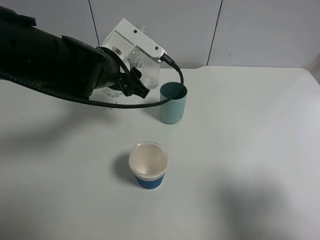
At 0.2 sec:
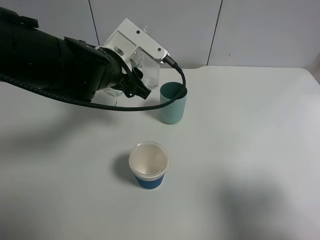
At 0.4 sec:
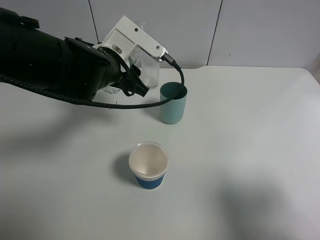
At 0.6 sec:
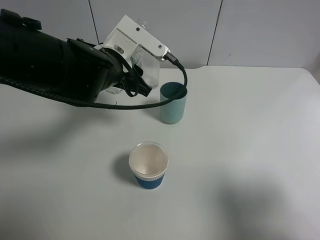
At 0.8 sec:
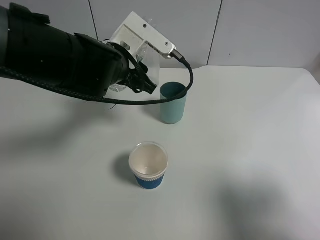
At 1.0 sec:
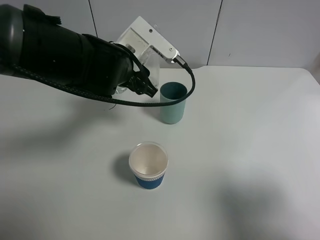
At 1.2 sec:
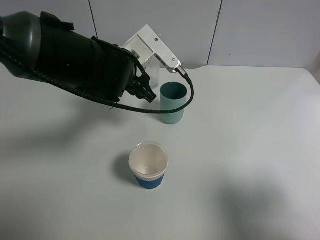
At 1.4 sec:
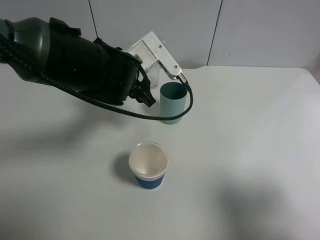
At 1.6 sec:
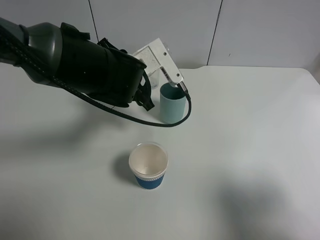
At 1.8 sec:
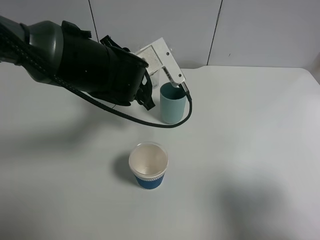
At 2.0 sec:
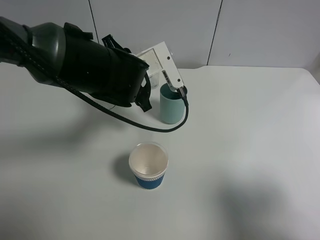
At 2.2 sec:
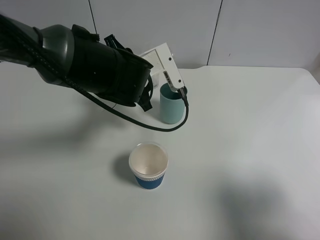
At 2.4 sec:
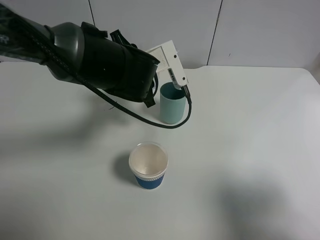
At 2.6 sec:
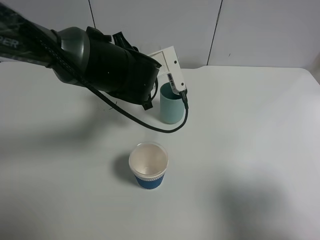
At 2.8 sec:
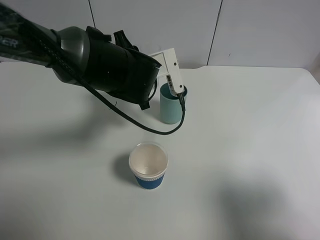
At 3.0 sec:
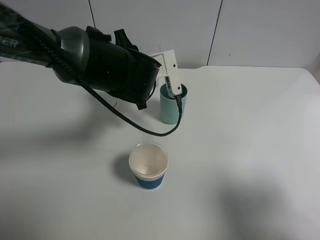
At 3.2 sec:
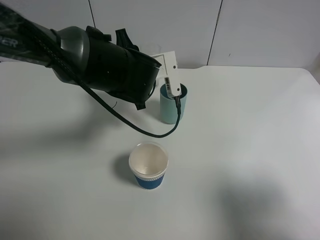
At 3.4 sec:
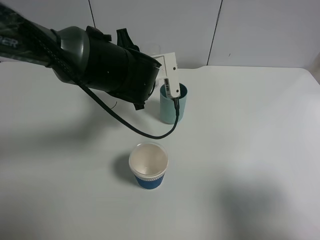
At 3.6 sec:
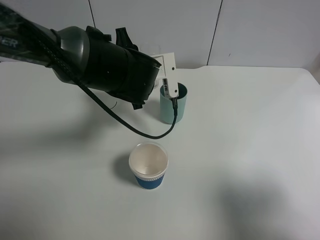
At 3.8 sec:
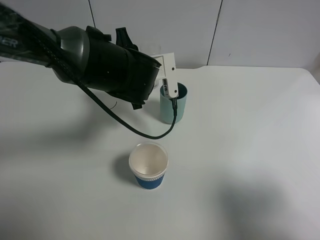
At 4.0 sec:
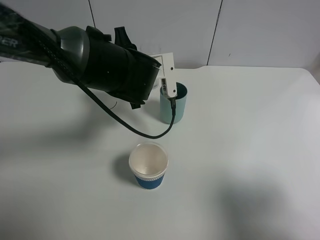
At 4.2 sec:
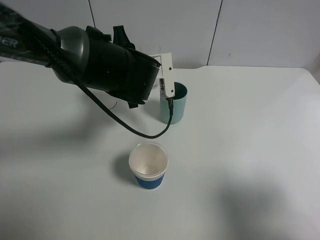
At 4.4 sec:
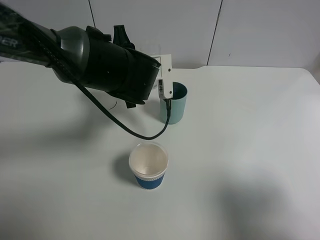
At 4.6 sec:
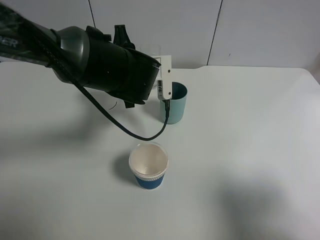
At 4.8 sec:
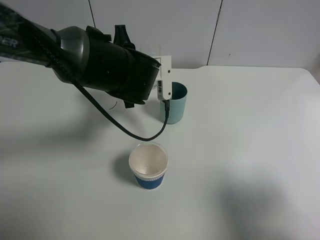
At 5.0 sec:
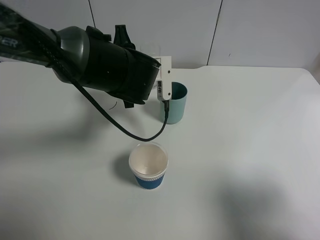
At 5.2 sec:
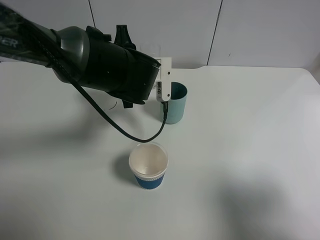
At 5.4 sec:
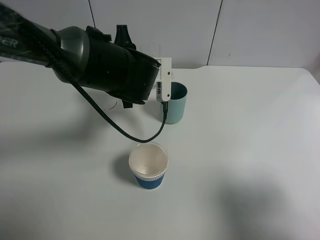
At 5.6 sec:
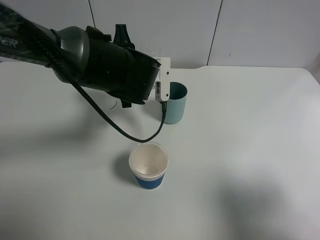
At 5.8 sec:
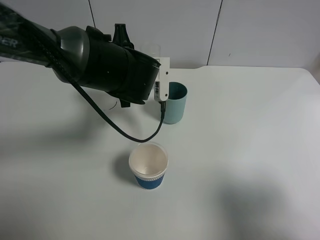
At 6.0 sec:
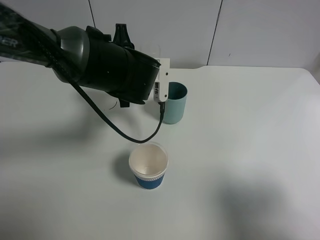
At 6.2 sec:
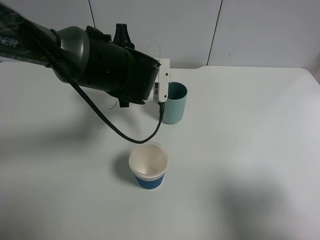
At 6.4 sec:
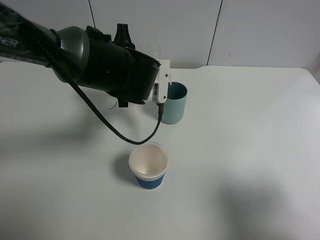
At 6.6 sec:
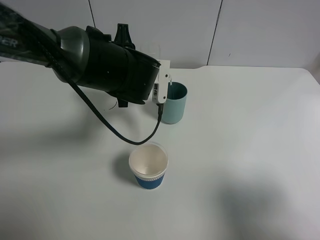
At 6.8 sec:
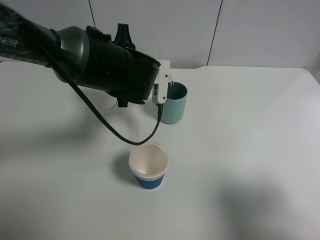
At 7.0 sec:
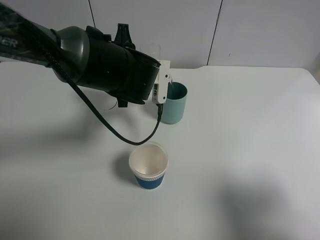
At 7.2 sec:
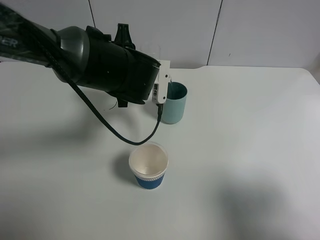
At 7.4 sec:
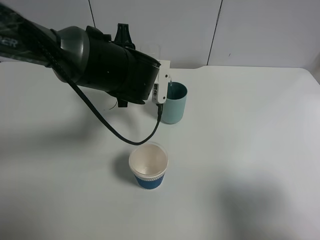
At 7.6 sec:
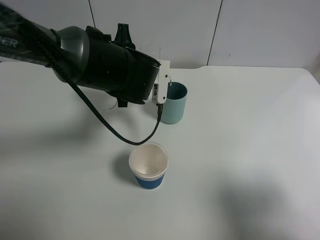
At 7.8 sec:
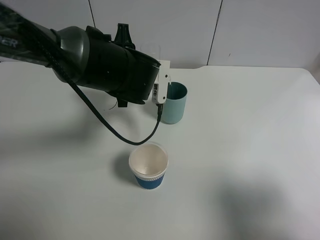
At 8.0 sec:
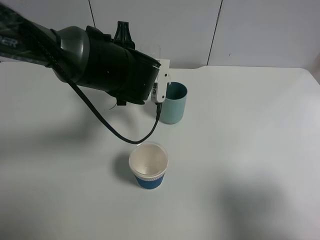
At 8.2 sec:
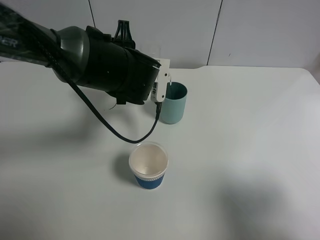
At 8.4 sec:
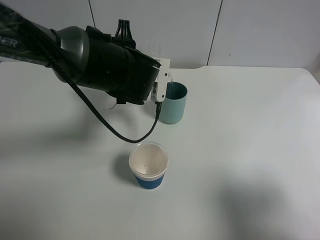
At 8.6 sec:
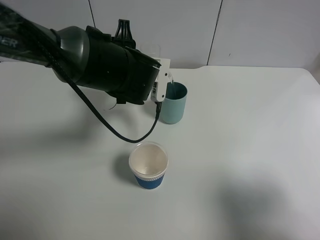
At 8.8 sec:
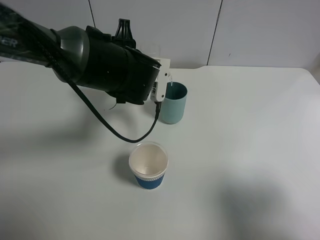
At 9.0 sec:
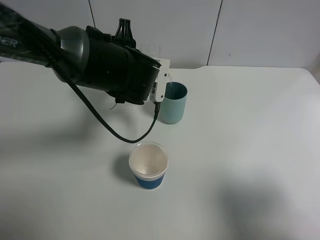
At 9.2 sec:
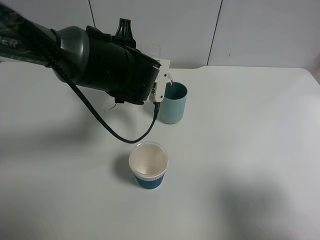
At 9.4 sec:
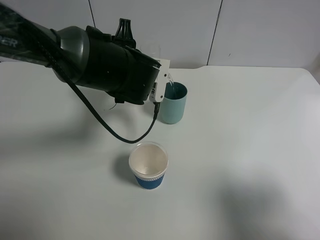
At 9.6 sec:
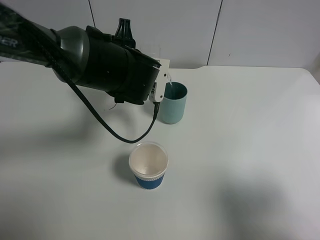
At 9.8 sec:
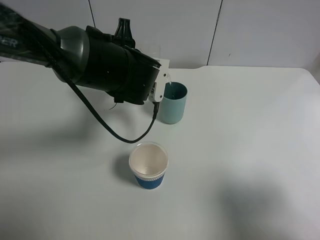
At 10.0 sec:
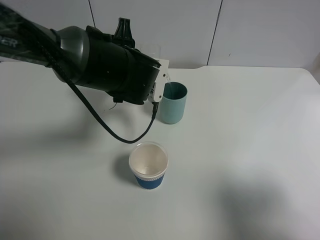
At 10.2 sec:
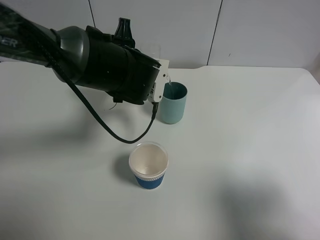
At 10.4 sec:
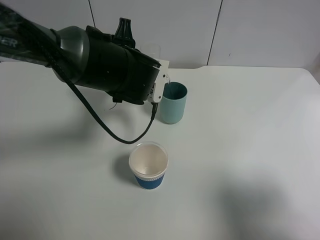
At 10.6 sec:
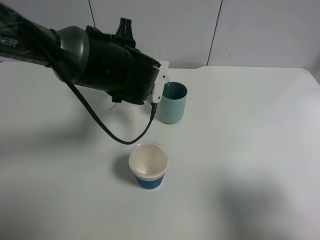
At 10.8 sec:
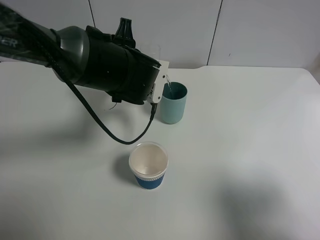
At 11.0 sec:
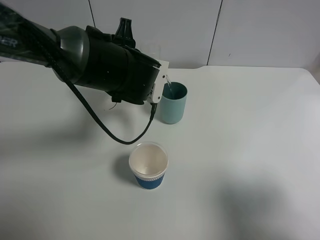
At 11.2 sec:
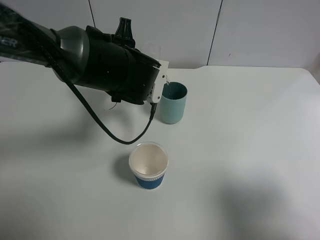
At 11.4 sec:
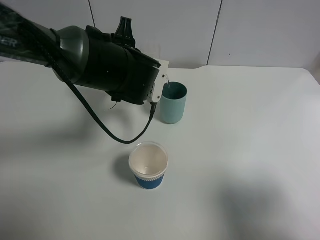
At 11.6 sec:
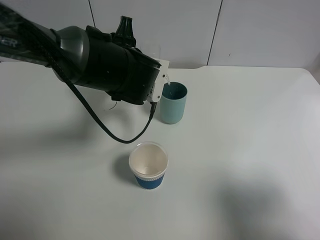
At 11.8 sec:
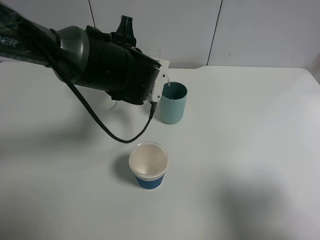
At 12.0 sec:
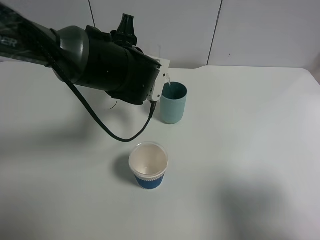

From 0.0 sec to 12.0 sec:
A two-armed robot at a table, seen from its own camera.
Task of the whole recording: use a gripper to hold the bottle of the drink and pour it into a random cup.
From 3.0 sec to 6.0 sec: There are only small adjustments of the grippers.
From 6.0 sec to 7.6 sec: Both grippers stay about where they are.
From 7.6 sec to 9.0 sec: Neither gripper changes place.
From 9.0 sec to 10.4 sec: Neither gripper changes place.
From 10.4 sec to 12.0 sec: Neither gripper changes place.

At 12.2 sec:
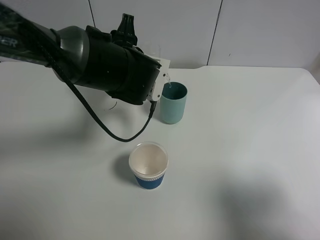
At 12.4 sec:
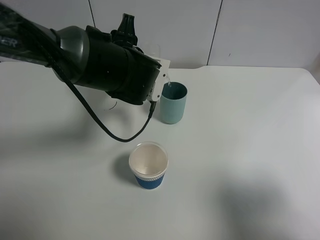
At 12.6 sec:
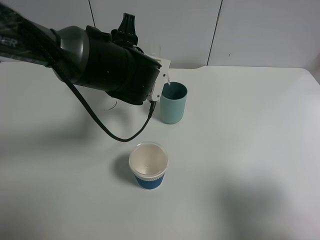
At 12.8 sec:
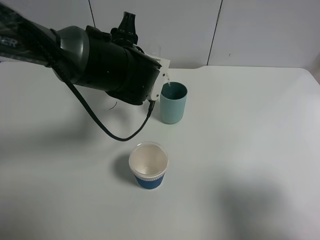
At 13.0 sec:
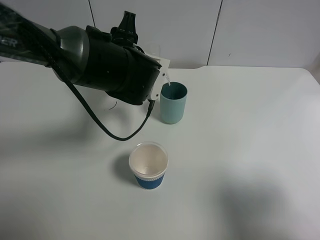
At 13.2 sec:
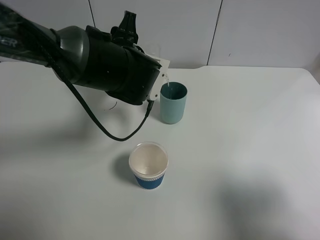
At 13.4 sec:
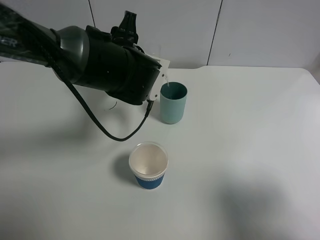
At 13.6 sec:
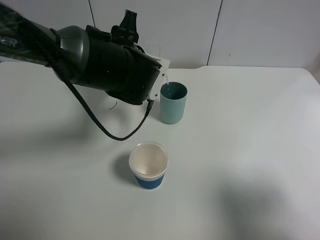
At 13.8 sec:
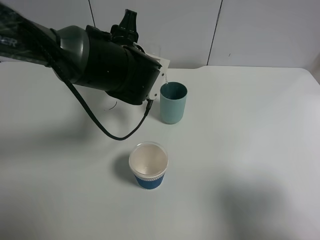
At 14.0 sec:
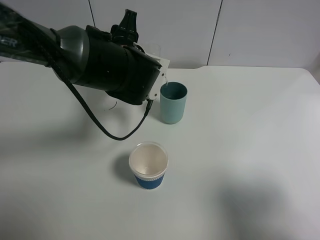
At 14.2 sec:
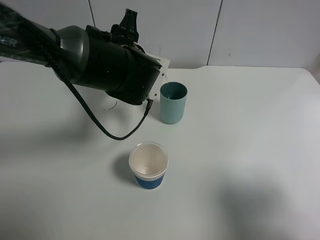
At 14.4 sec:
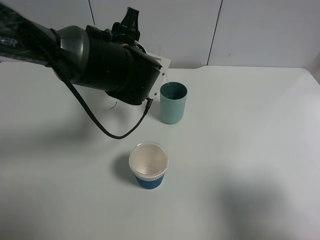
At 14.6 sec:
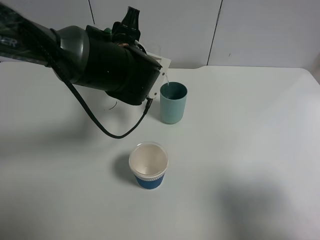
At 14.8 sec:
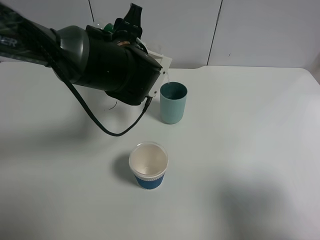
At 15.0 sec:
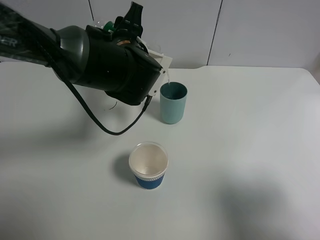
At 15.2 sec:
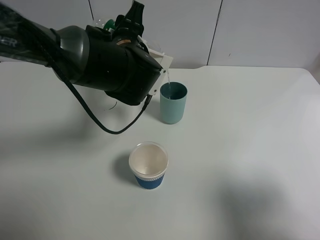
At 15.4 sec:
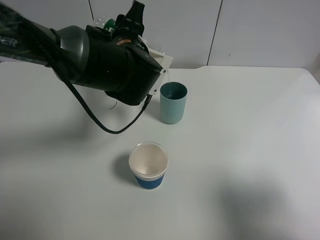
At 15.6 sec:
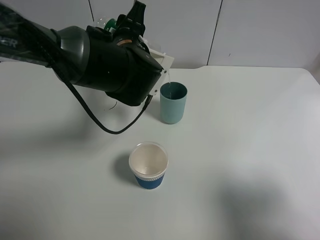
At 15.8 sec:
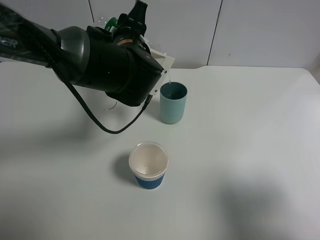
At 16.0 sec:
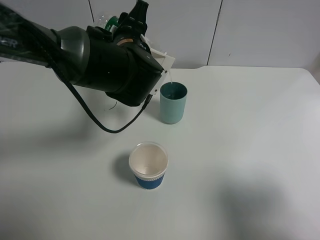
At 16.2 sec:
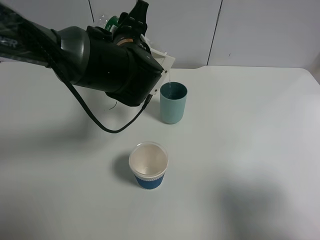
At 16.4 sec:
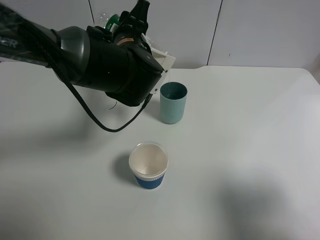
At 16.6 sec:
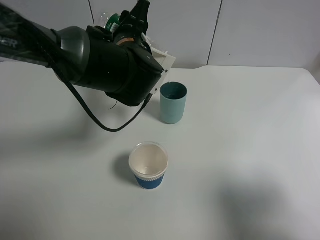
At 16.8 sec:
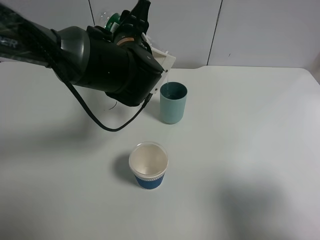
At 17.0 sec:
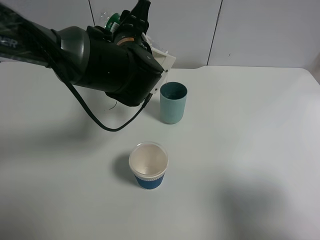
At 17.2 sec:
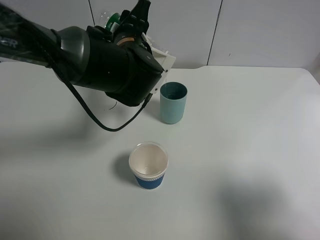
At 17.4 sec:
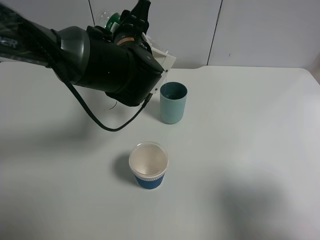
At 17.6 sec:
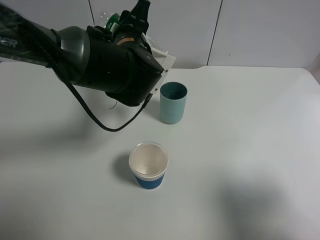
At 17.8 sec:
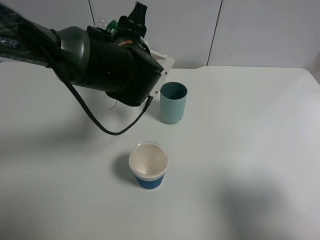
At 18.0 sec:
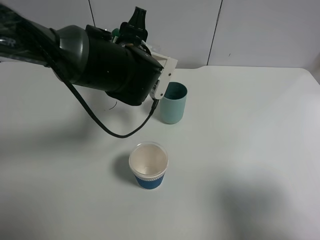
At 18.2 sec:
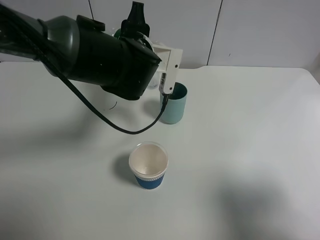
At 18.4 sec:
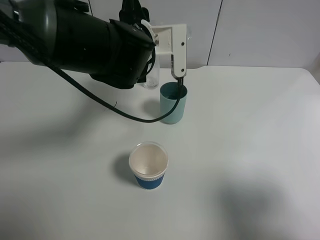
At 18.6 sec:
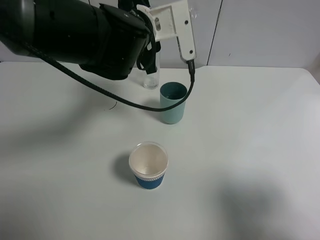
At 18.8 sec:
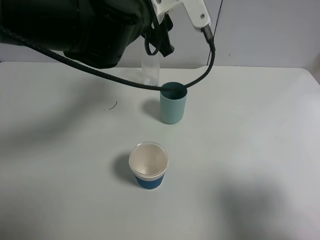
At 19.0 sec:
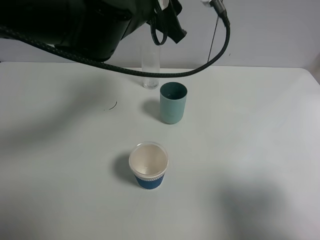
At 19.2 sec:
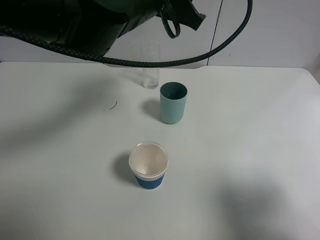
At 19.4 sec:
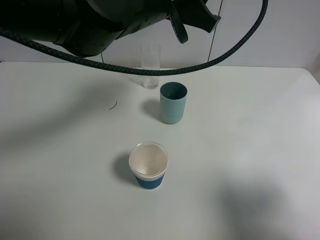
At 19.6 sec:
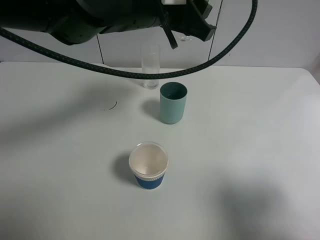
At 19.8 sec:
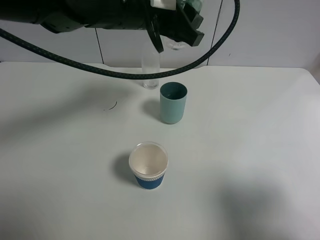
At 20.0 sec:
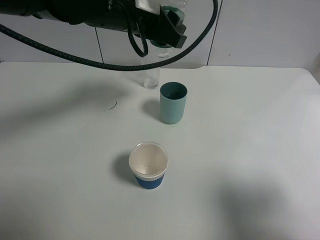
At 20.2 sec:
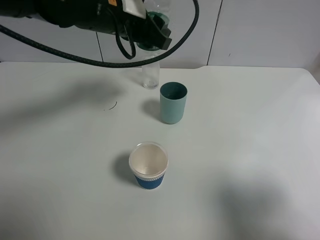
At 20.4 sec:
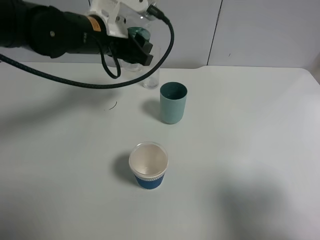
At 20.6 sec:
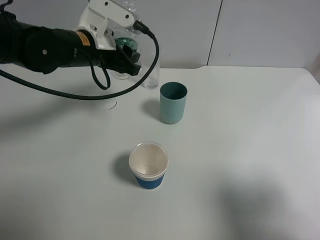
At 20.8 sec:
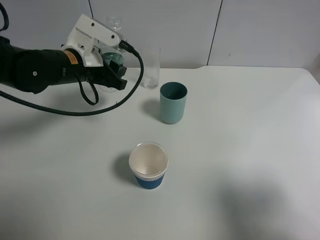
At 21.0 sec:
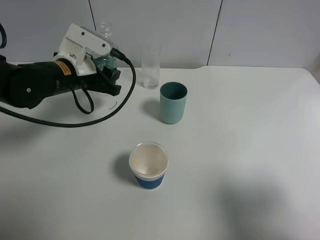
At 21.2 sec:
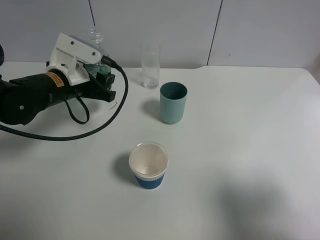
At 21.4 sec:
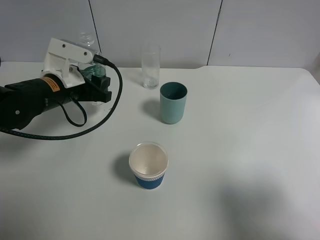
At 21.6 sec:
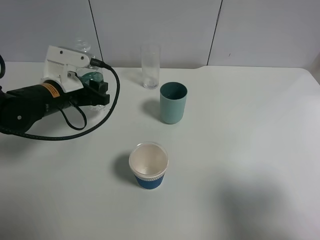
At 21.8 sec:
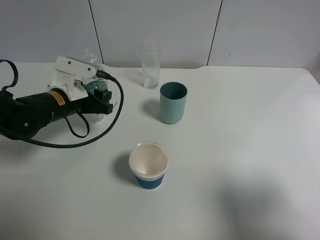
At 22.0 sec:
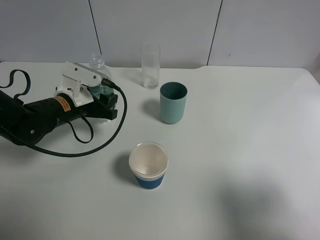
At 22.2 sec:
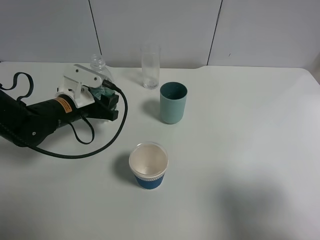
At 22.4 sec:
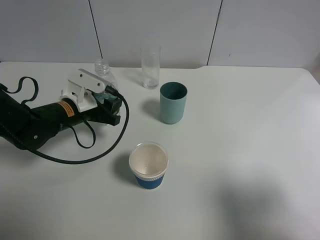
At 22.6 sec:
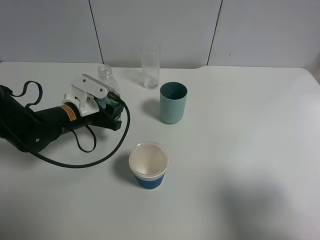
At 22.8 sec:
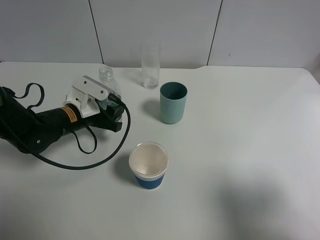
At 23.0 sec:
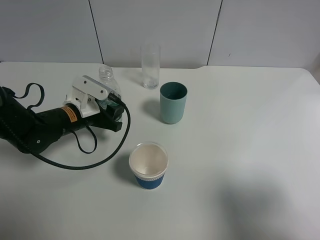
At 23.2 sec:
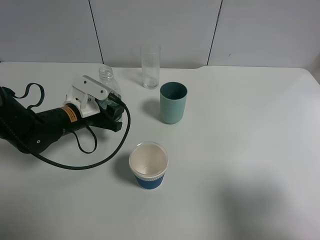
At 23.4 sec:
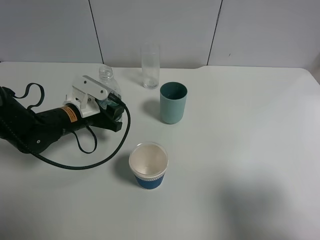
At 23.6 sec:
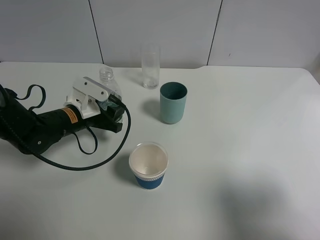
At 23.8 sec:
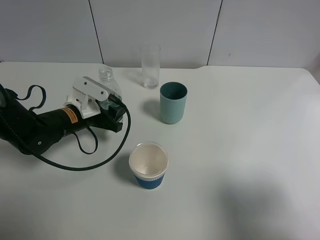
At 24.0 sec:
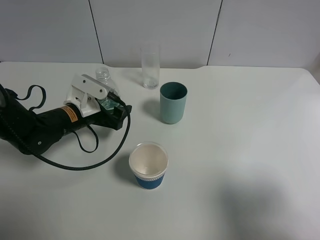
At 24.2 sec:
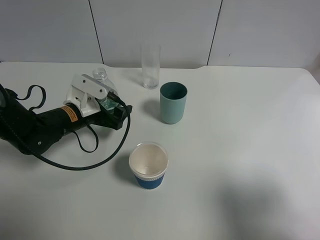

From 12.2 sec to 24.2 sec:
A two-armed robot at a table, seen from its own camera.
Task of the whole recording: use a gripper to hold the bottle of the drink and pour it into a random cup.
Step, from 12.2 sec to 18.4 sec: Pour the mineral water into the cyan cup with the left gripper.
From 12.2 sec to 13.8 sec: The two grippers keep their place.
From 13.8 sec to 15.2 sec: The grippers move only a little.
From 15.2 sec to 16.6 sec: Neither gripper changes place.
From 18.2 sec to 19.8 sec: The left gripper heads upward, covering about 10 cm.
From 19.8 sec to 21.2 sec: The left gripper travels to the left and downward by roughly 20 cm.
From 21.2 sec to 22.6 sec: The left gripper travels downward by approximately 10 cm.
From 22.6 sec to 24.2 sec: The left gripper opens its fingers.
